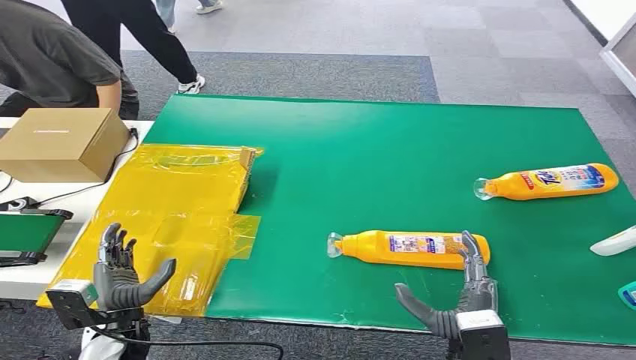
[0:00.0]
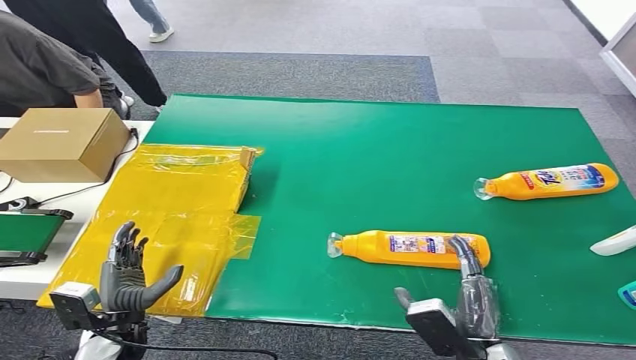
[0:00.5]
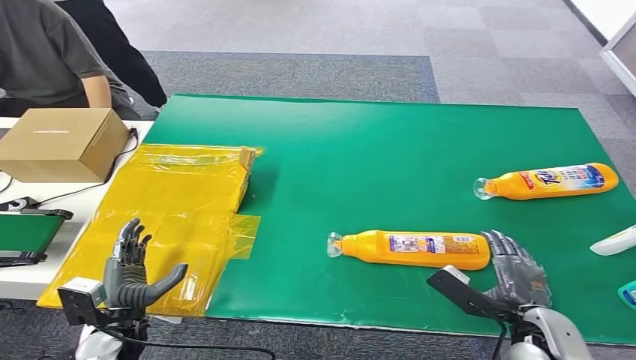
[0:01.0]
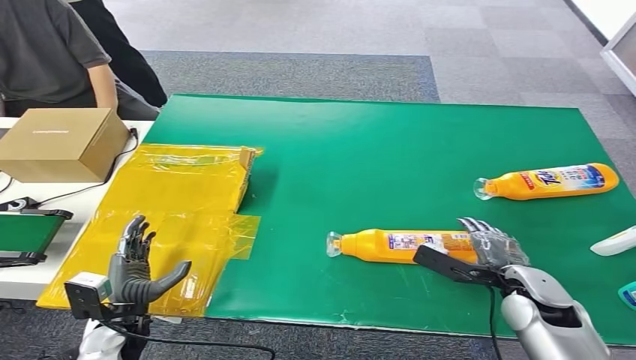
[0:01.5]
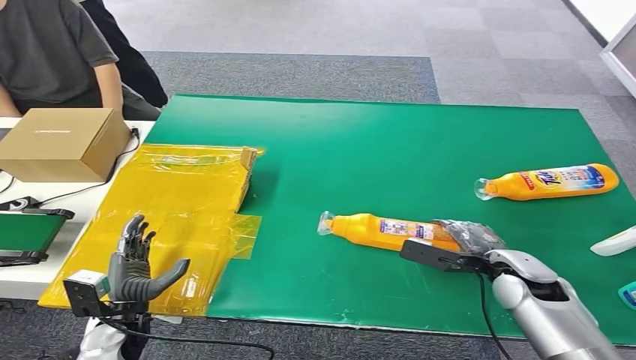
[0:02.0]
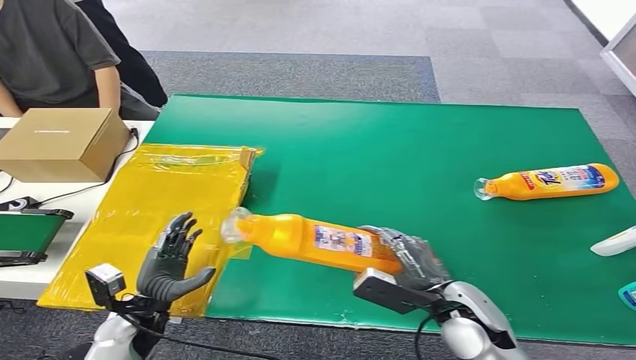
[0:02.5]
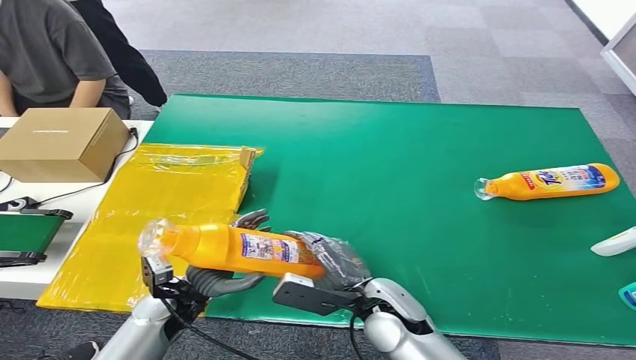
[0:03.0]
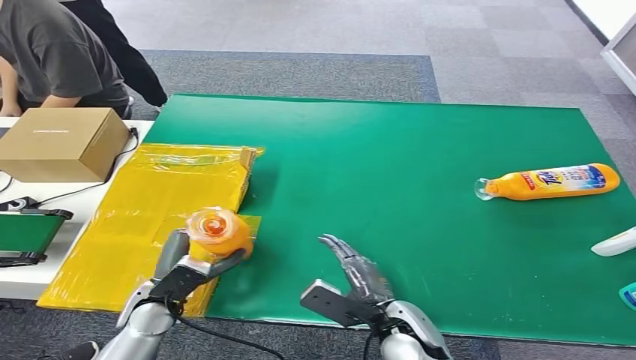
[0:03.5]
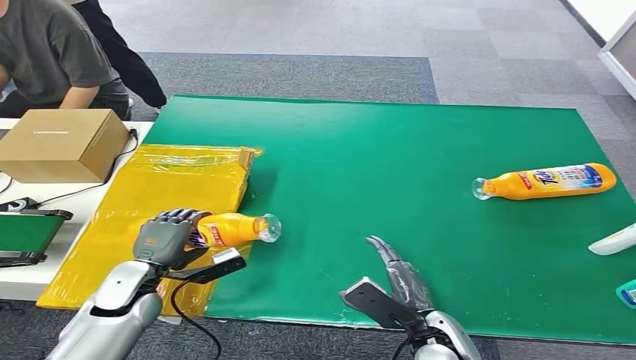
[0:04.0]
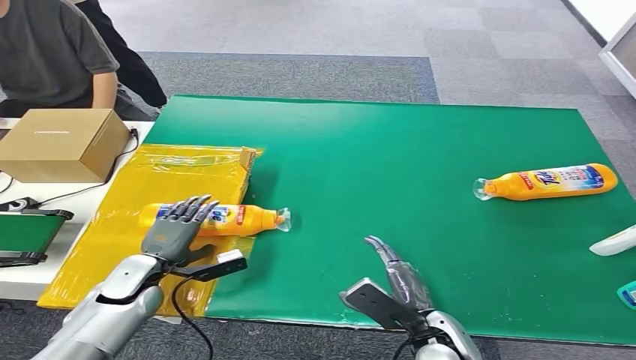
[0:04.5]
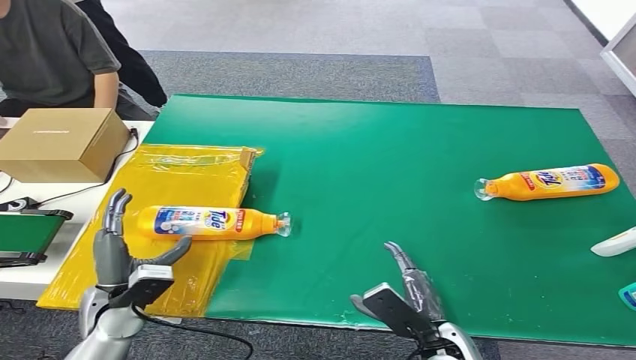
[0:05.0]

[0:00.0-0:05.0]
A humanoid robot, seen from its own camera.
Step, 0:00.0 to 0:02.0: Pick up the bottle from the table.
Step, 0:02.5 to 0:05.0: Turn the bottle to the front side.
0:02.5 to 0:05.0: The left hand goes to the right and returns, about 5 cm each way. The right hand goes approximately 10 cm backward and downward, and moves about 10 cm to the left and comes back.

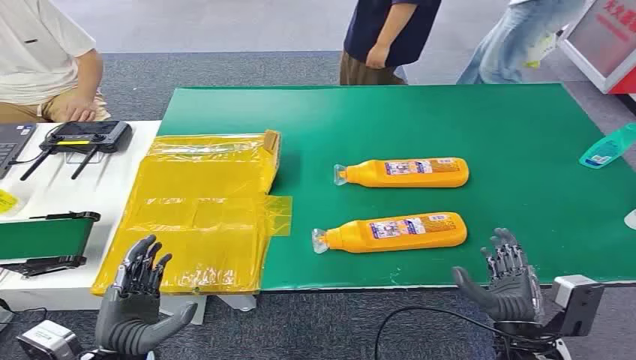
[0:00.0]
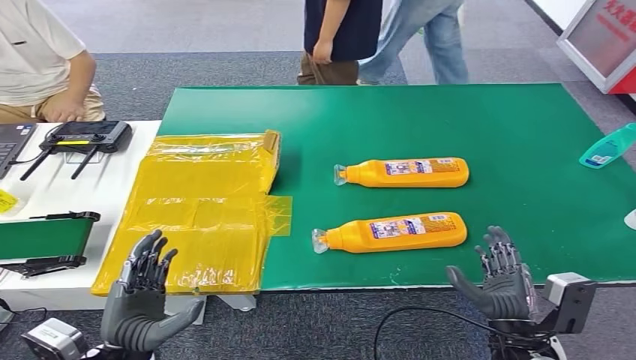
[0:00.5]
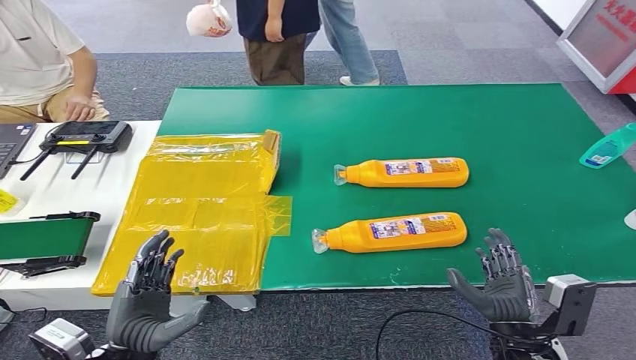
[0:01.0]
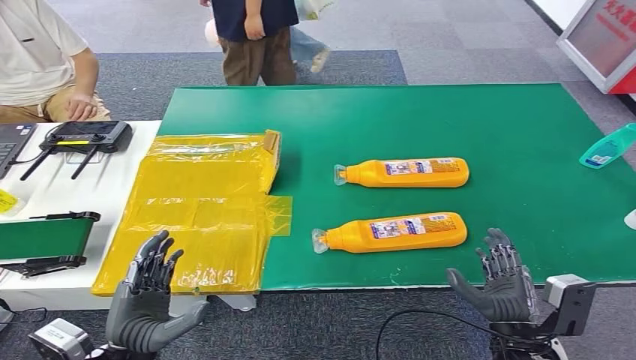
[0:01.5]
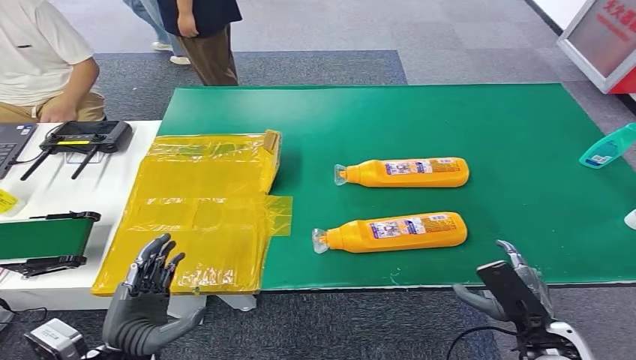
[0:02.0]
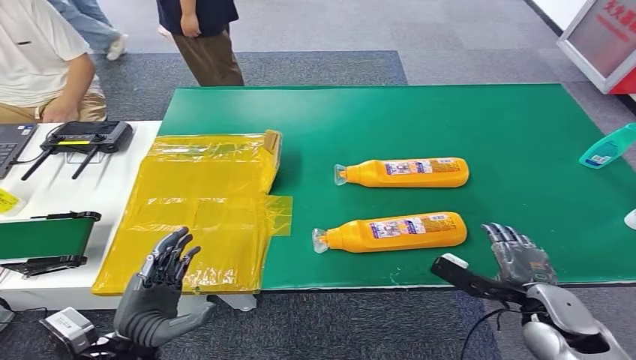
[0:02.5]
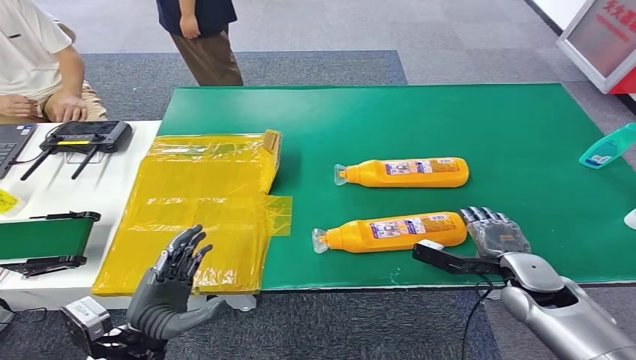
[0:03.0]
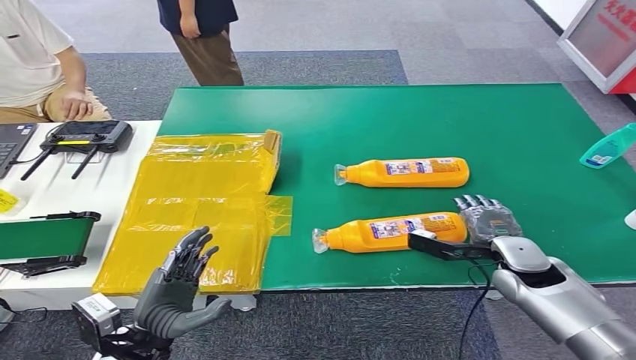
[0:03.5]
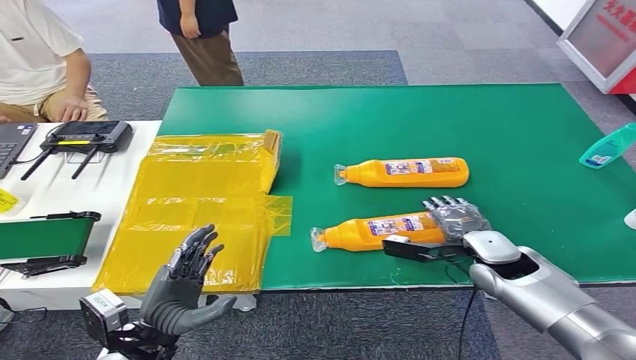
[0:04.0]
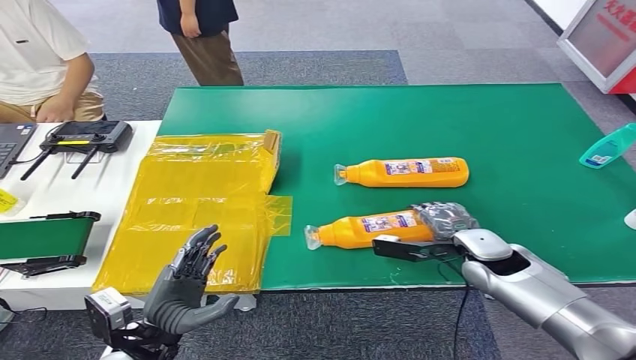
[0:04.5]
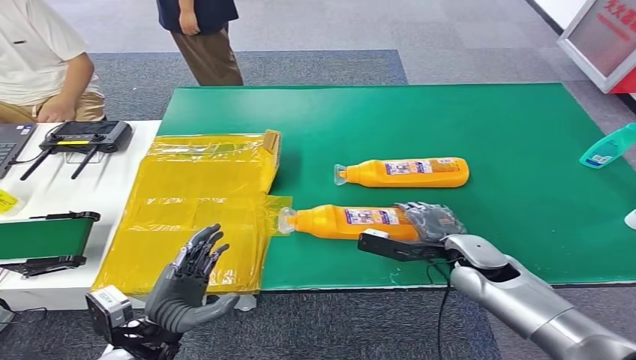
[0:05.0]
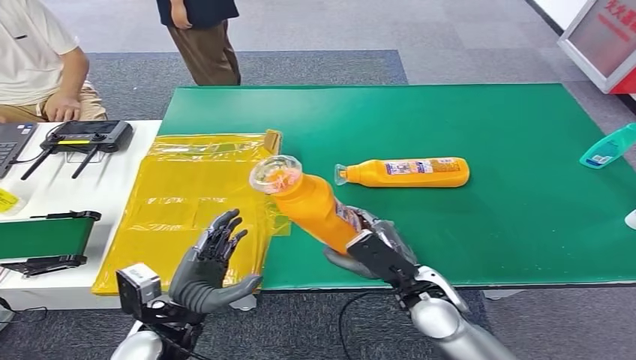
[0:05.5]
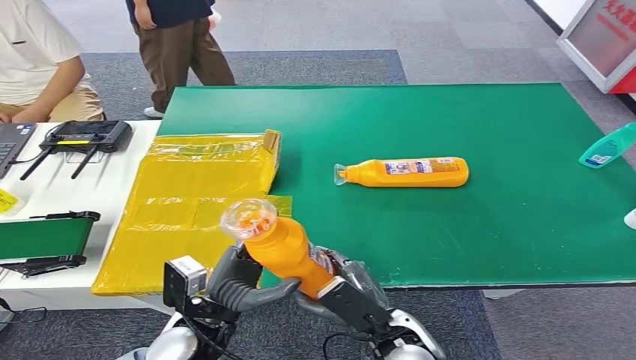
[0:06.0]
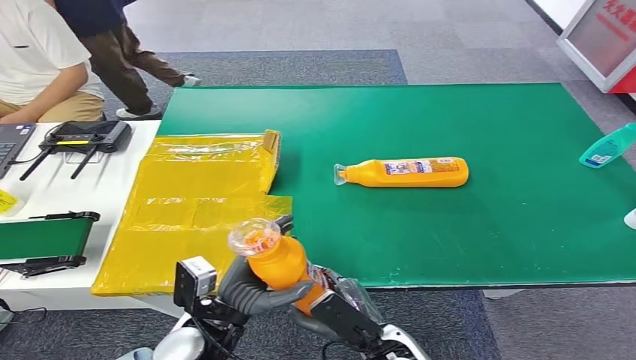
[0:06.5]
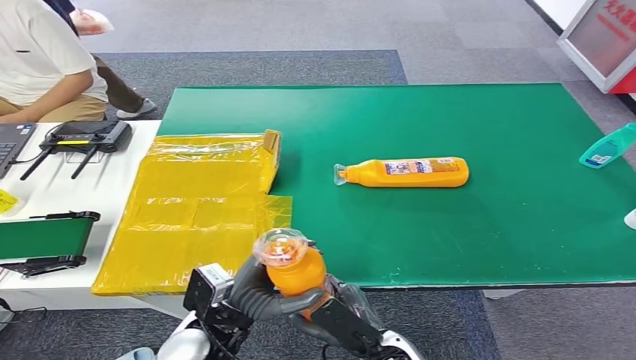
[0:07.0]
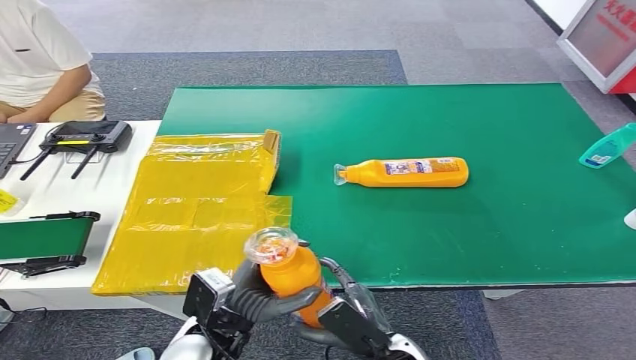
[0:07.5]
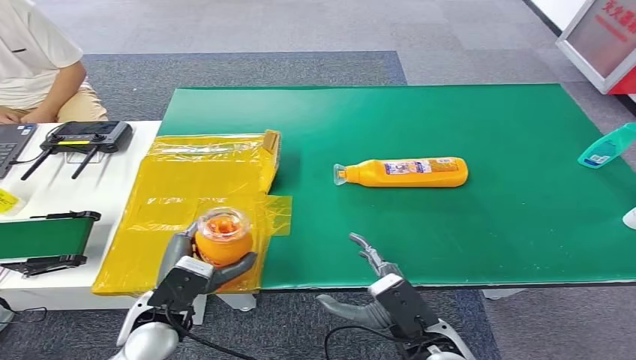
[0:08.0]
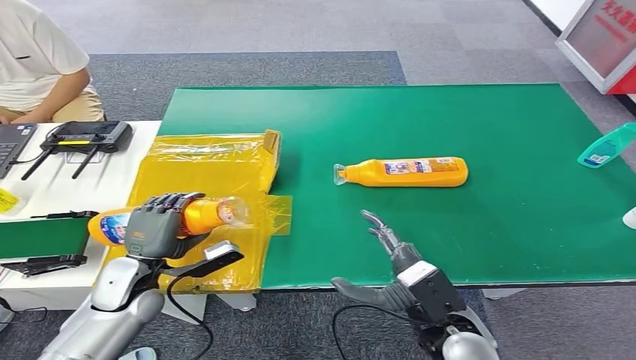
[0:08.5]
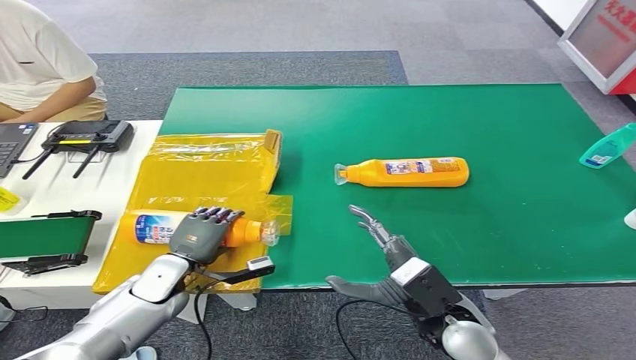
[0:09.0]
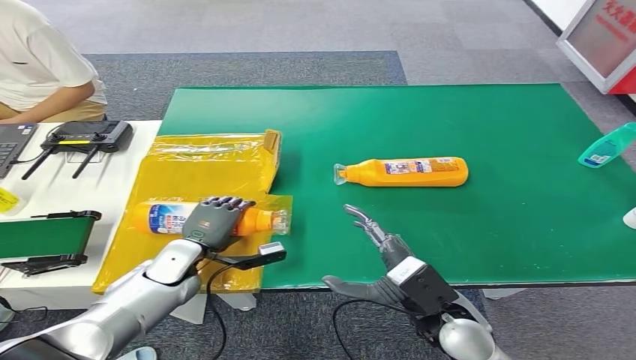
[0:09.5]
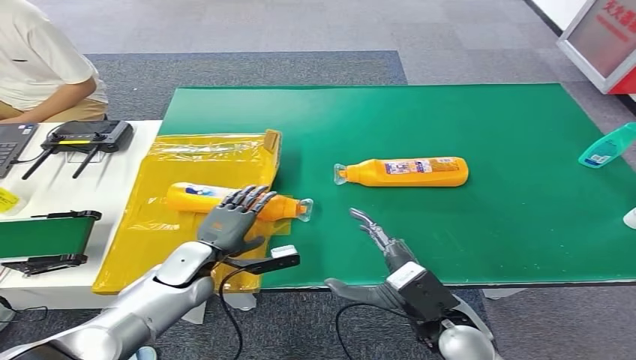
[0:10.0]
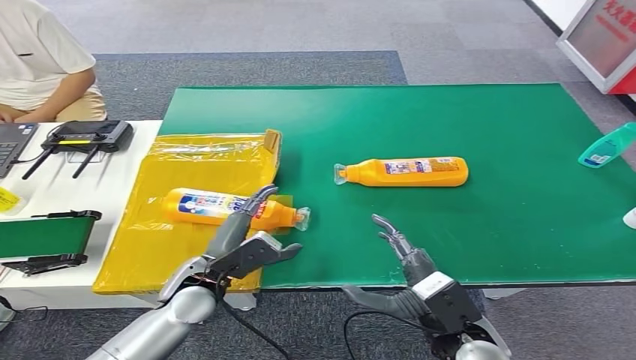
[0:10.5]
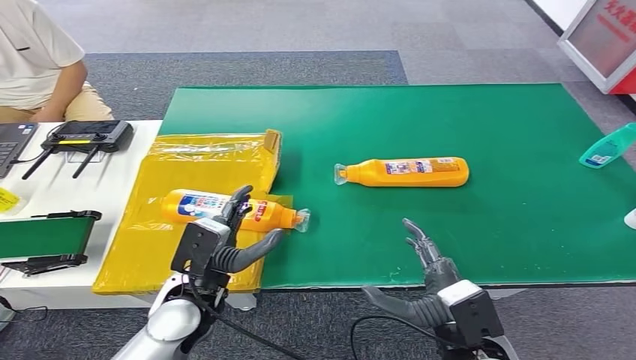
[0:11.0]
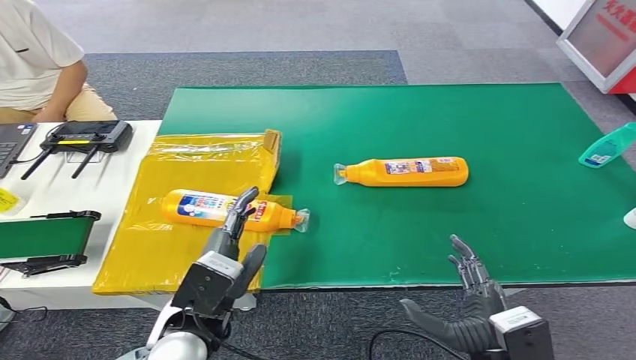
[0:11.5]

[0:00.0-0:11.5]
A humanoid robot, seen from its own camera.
Step, 0:00.0 to 0:05.5: Pick up the bottle from the table.
Step, 0:06.5 to 0:11.5: Turn the bottle to the front side.
0:02.0 to 0:04.0: The right hand is displaced forward by roughly 20 cm.
0:06.0 to 0:07.5: There are only small adjustments of the hands.
0:07.5 to 0:09.5: The left hand shifts approximately 15 cm forward and to the left. The right hand shifts some 10 cm upward, forward and to the right.
0:09.5 to 0:11.5: The right hand moves backward and to the right, some 10 cm; the left hand shifts about 20 cm backward, upward and to the right.
